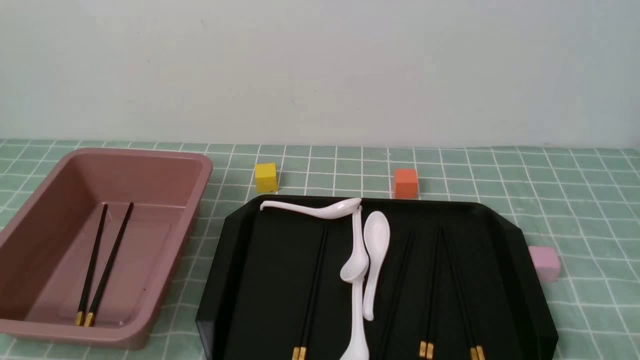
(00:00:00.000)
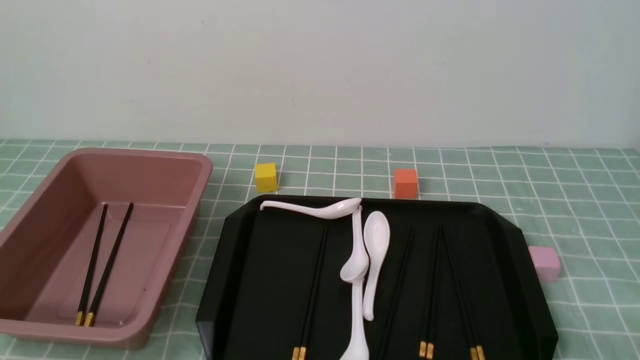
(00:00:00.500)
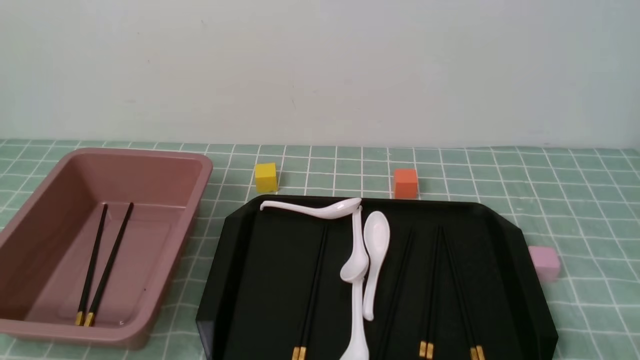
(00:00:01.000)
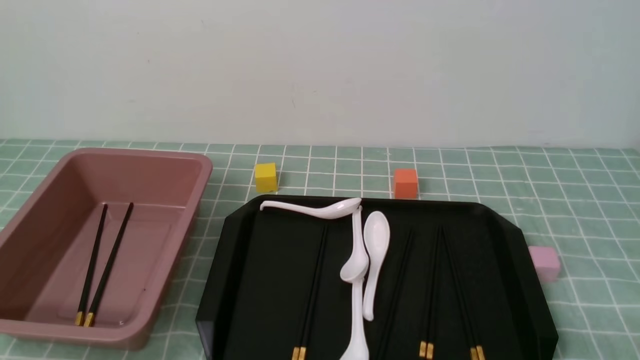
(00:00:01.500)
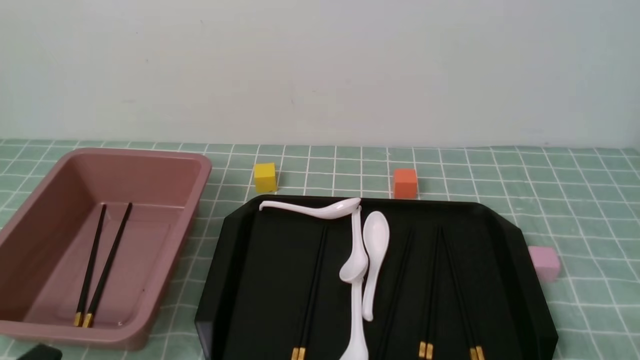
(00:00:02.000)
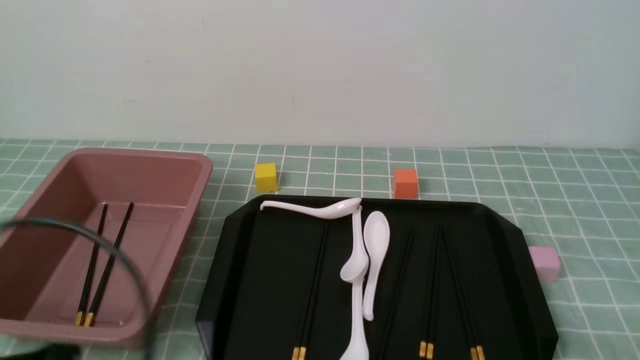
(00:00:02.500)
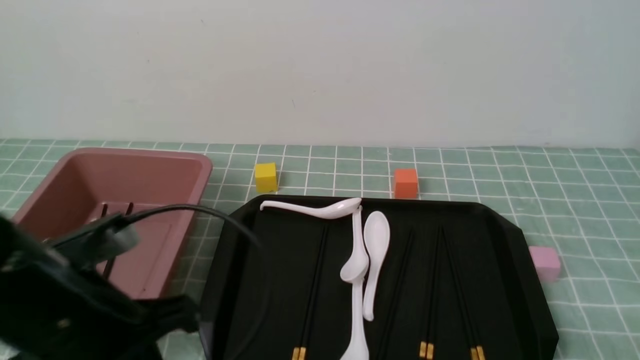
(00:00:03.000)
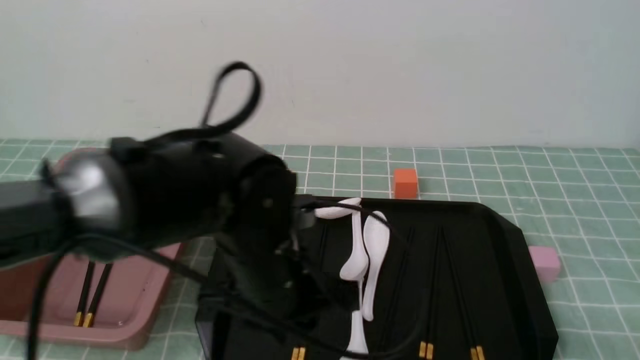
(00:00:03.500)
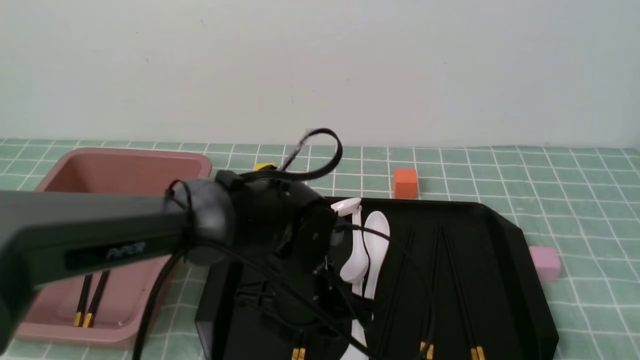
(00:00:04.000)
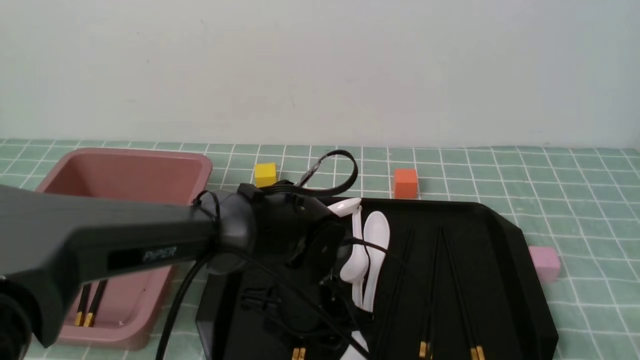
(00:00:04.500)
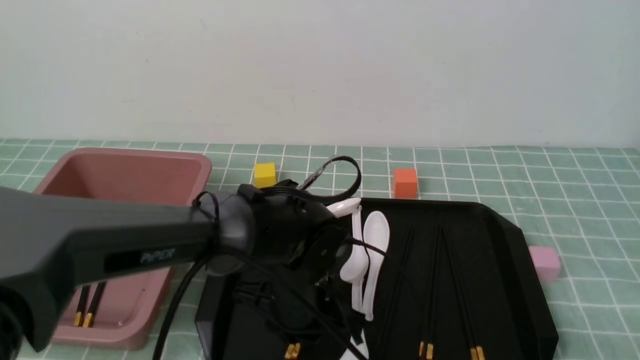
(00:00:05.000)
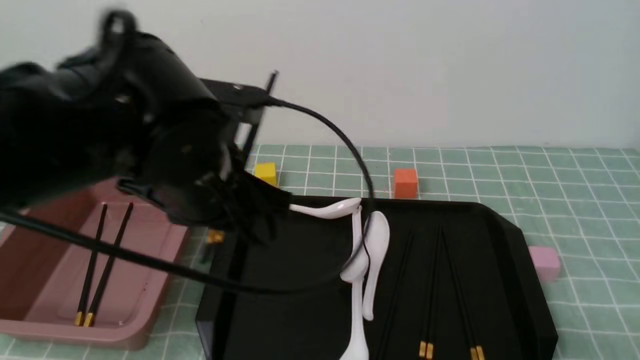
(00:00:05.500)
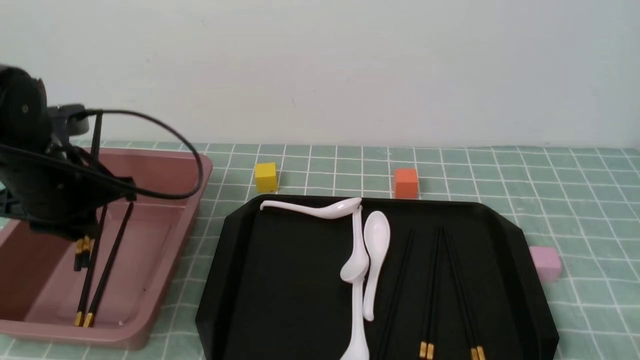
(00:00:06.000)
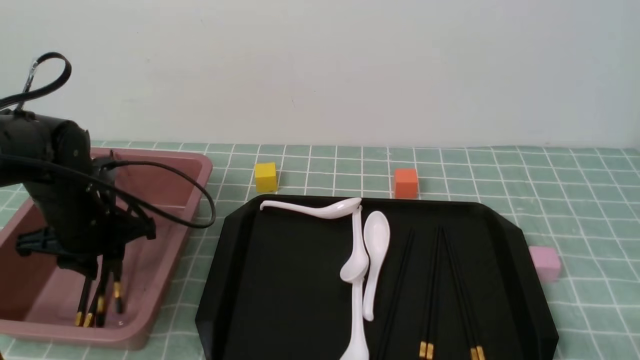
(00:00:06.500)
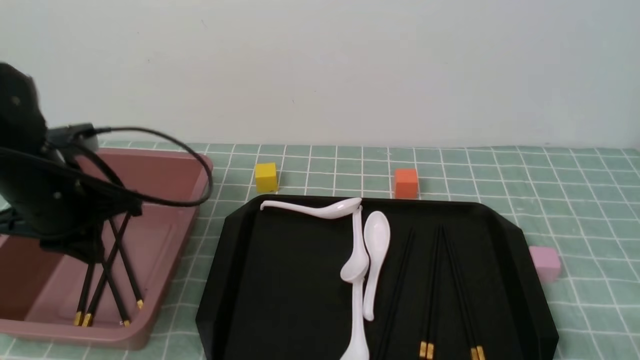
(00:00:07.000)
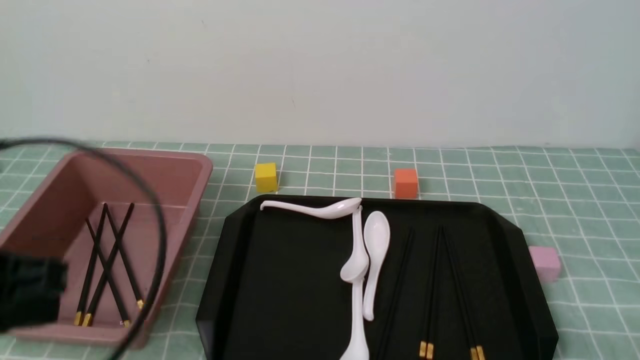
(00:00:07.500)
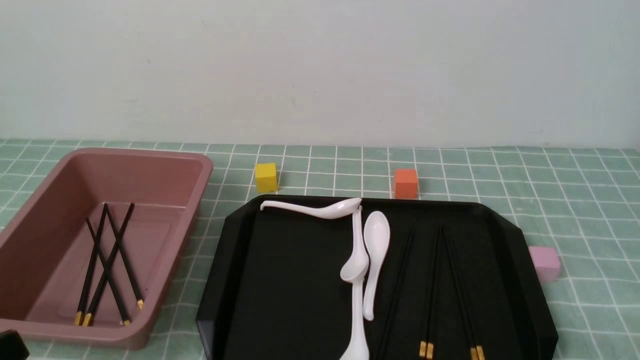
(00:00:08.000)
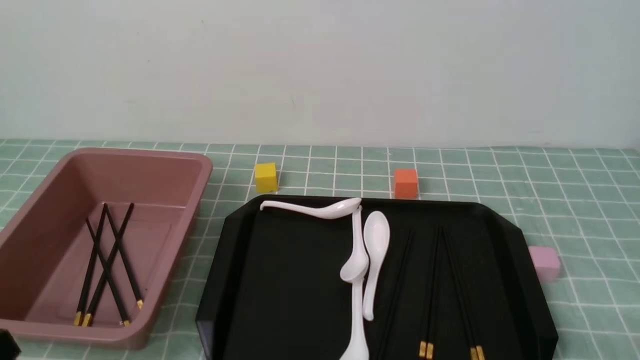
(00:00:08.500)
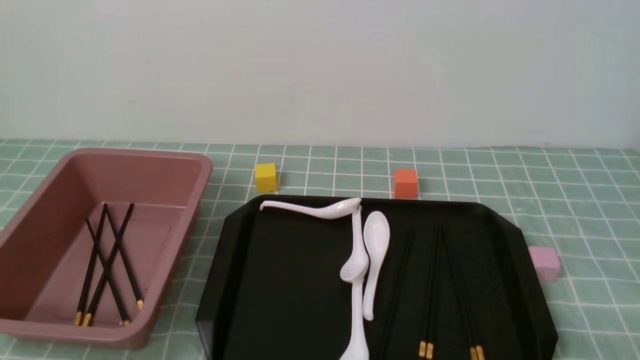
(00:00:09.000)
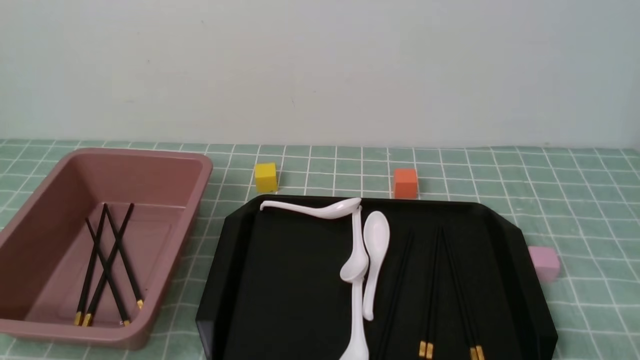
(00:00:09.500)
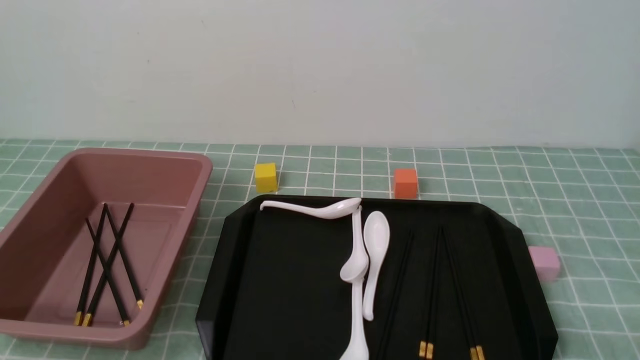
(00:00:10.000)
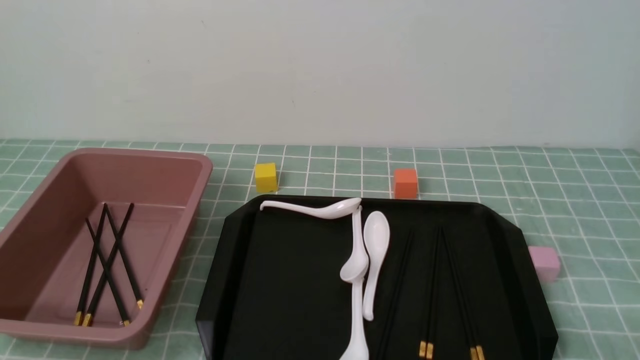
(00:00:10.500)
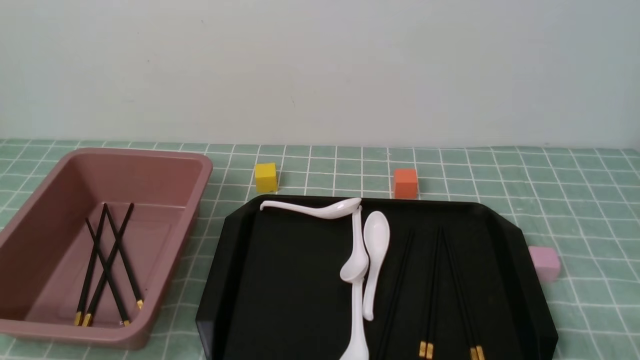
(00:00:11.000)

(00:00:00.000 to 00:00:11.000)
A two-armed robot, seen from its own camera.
Step, 00:00:00.000 - 00:00:05.000: use the left arm to grab a pair of chopsticks.
Step, 00:00:05.500 - 00:00:06.500: use the left arm to put the chopsticks into the lunch box.
00:00:02.000 - 00:00:03.500: The left gripper travels forward and to the right by roughly 30 cm, and opens.
00:00:03.500 - 00:00:05.500: The left gripper travels upward and to the left by about 10 cm, and opens, then closes again.
00:00:05.500 - 00:00:07.500: The left gripper shifts roughly 20 cm backward and to the left.
00:00:07.500 - 00:00:09.000: The left gripper travels downward and backward by approximately 15 cm.

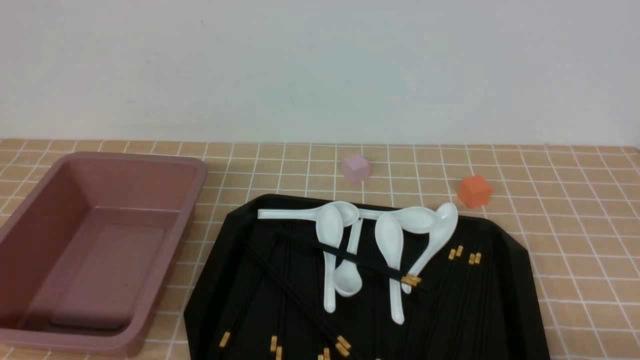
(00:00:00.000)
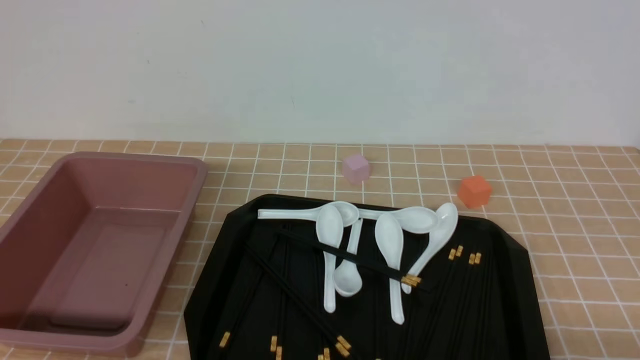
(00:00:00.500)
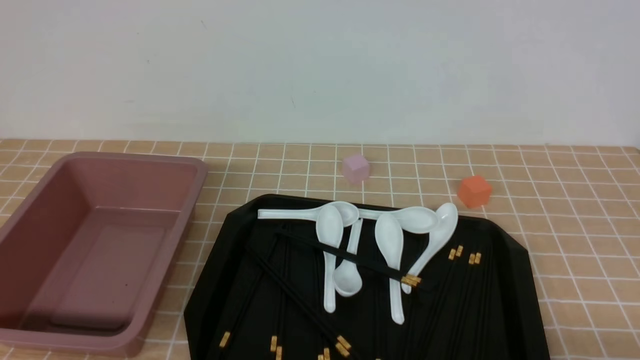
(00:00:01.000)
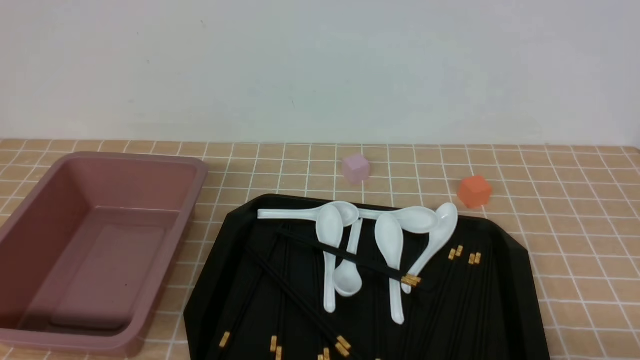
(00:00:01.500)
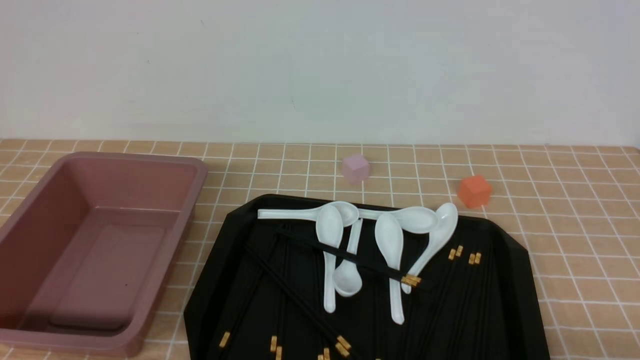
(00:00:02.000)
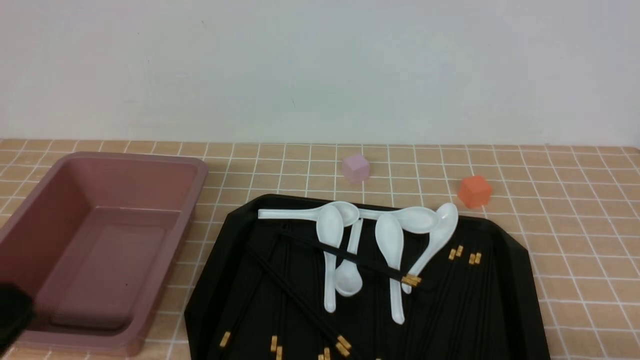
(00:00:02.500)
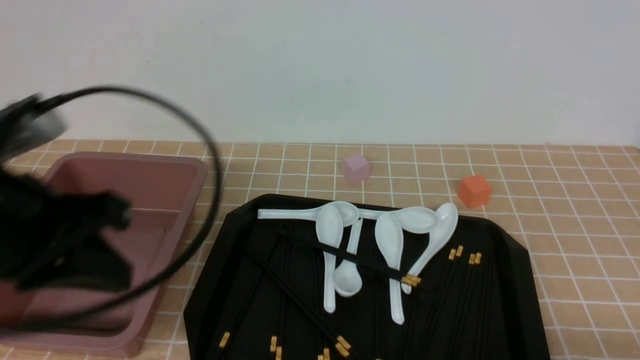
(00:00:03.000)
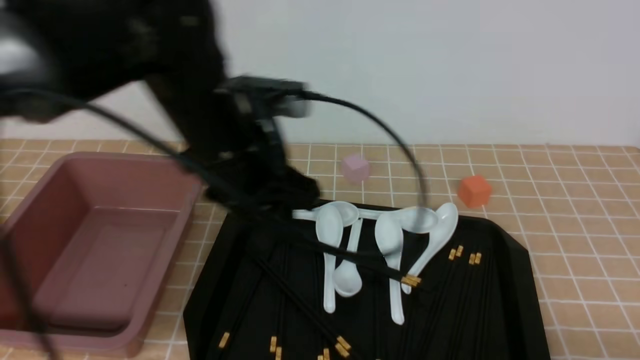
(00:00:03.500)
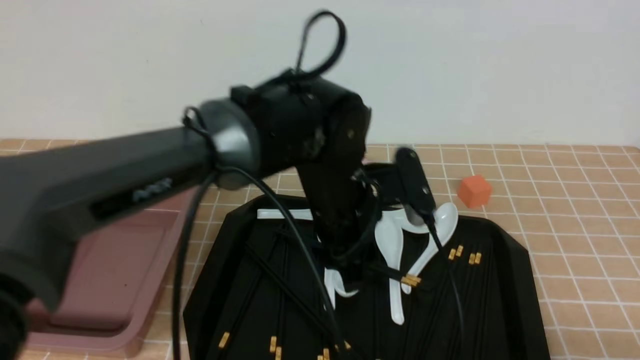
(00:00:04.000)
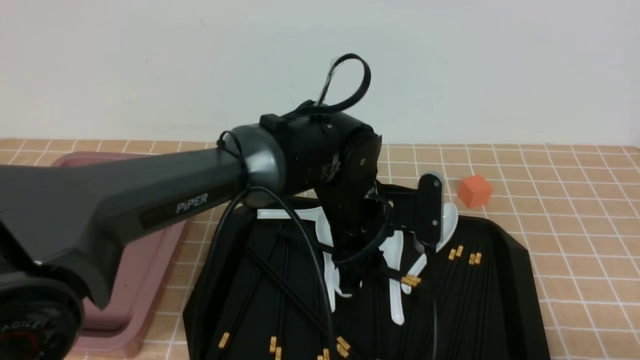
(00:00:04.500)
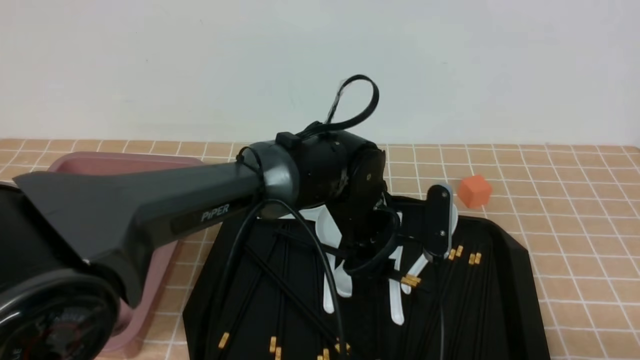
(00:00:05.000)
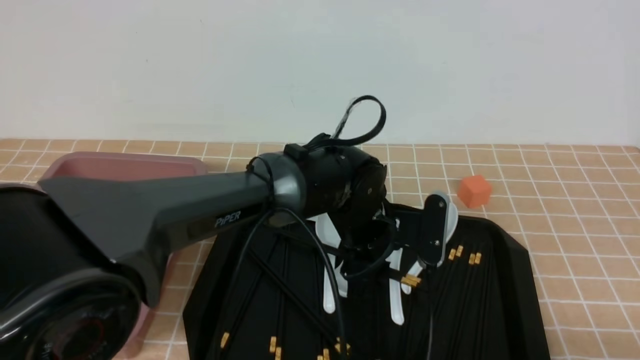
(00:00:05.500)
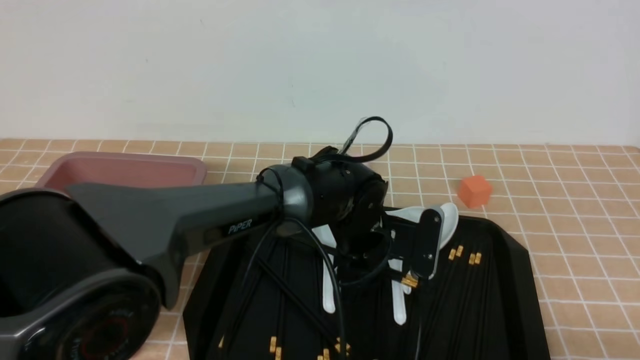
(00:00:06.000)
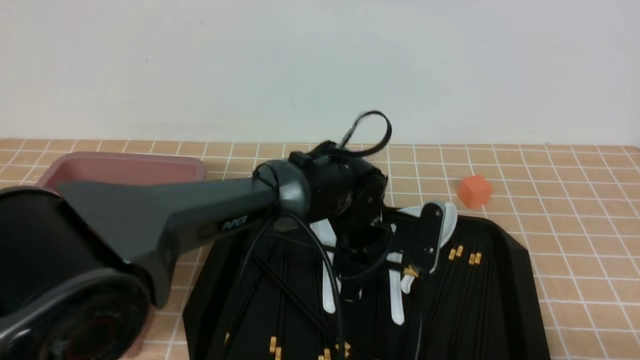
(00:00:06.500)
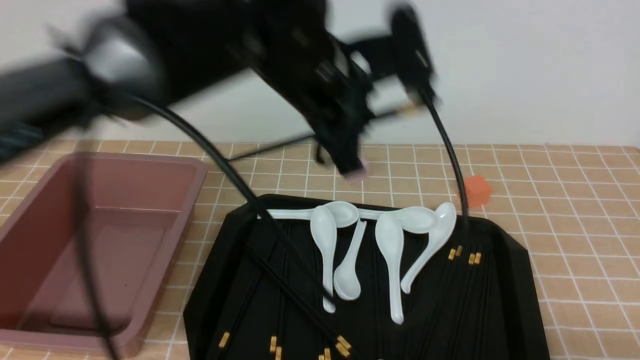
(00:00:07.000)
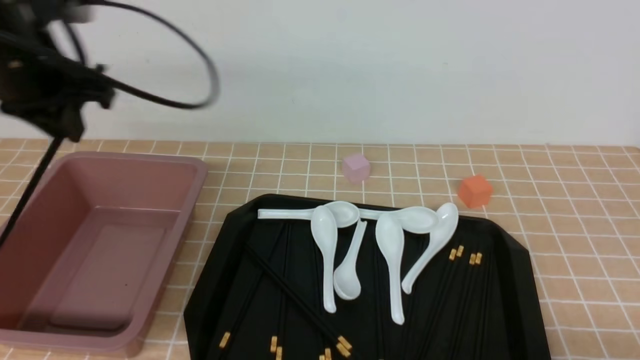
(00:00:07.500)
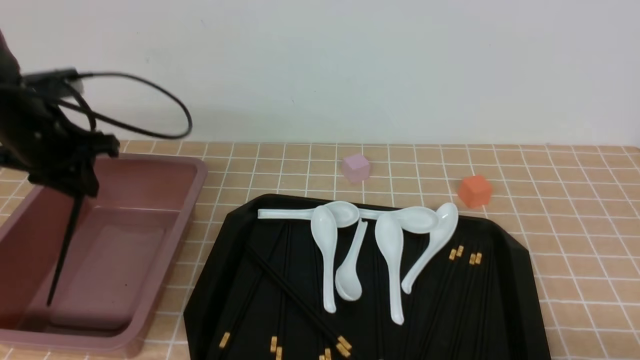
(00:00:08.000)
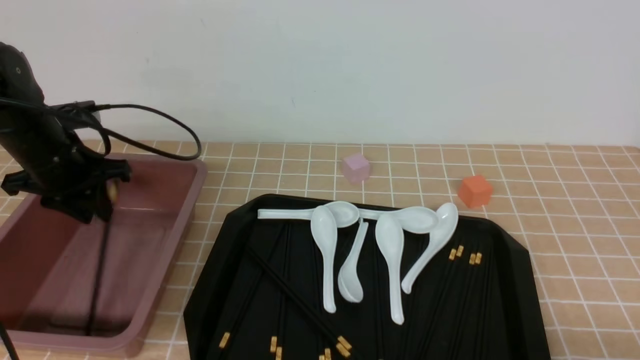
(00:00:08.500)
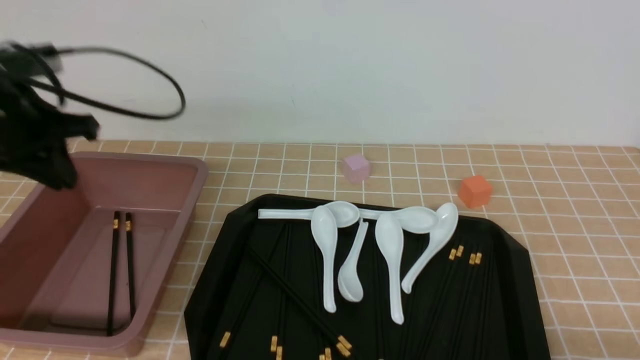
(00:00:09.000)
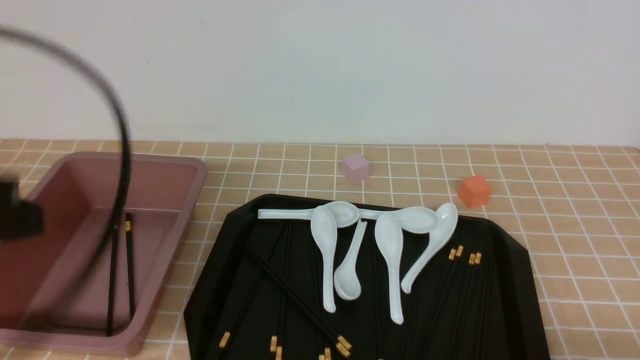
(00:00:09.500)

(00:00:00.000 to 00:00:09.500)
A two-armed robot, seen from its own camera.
Step, 00:00:00.000 - 00:00:06.500: use the left arm to grab a pair of chopsticks.
Step, 00:00:07.000 - 00:00:08.500: use the left arm to put the chopsticks into the lunch box.
00:00:02.000 - 00:00:04.000: The left gripper is displaced forward and to the right by about 40 cm, and closes, then opens again.
00:00:04.000 - 00:00:05.500: The left gripper is displaced downward by roughly 5 cm.
00:00:05.500 - 00:00:07.500: The left gripper is displaced to the left and upward by roughly 35 cm, and closes up.
00:00:07.500 - 00:00:09.500: The left gripper is displaced backward by some 25 cm.
